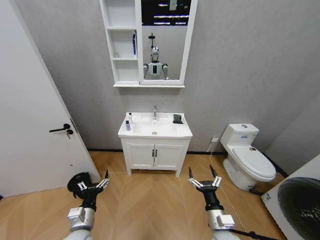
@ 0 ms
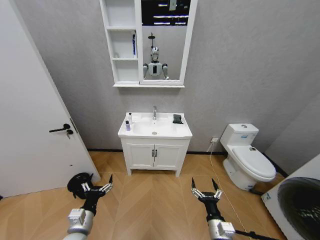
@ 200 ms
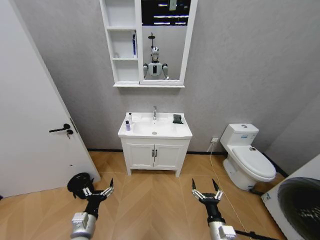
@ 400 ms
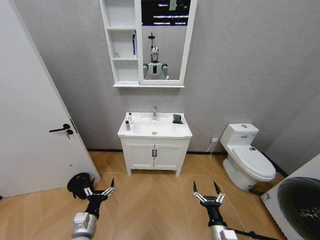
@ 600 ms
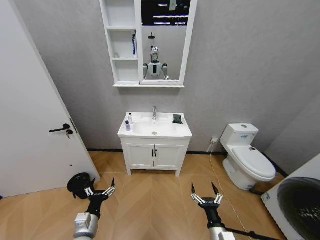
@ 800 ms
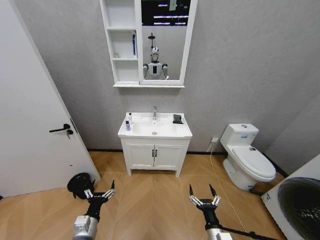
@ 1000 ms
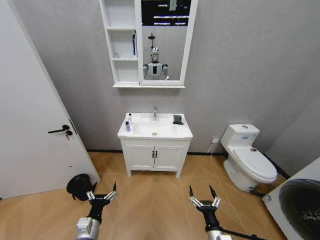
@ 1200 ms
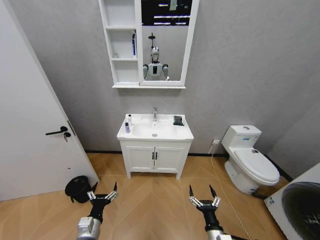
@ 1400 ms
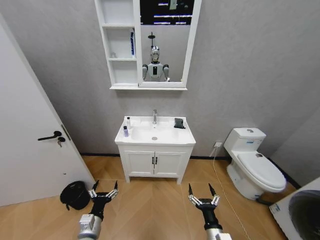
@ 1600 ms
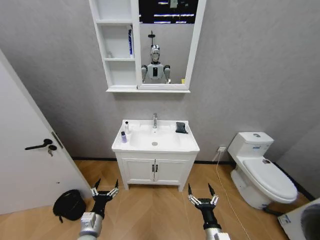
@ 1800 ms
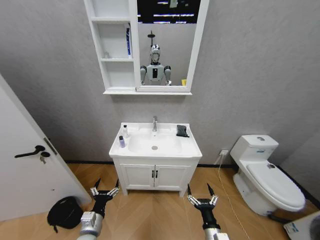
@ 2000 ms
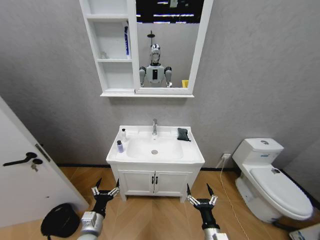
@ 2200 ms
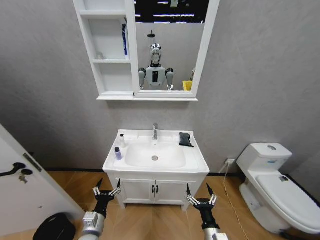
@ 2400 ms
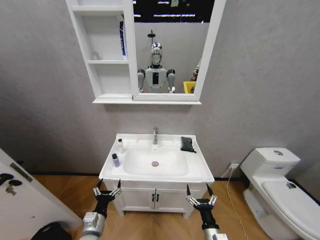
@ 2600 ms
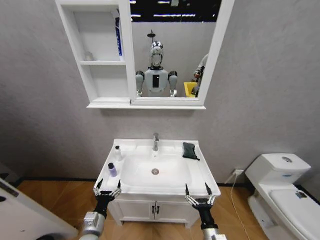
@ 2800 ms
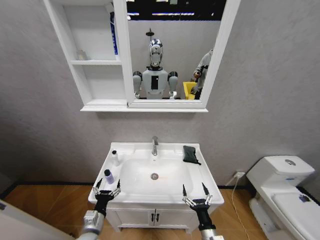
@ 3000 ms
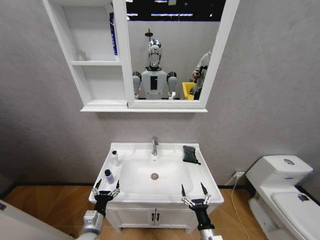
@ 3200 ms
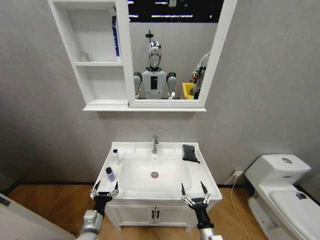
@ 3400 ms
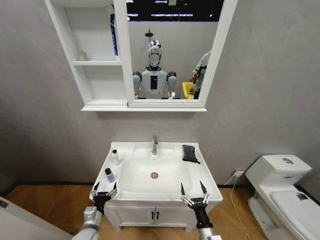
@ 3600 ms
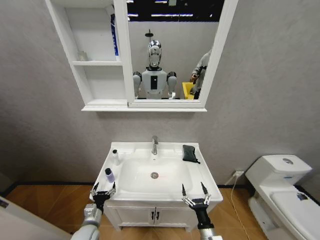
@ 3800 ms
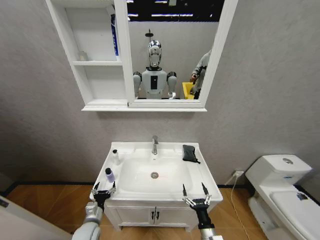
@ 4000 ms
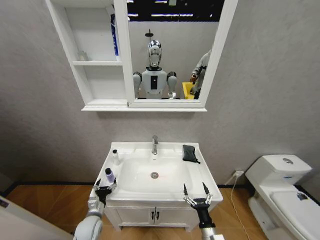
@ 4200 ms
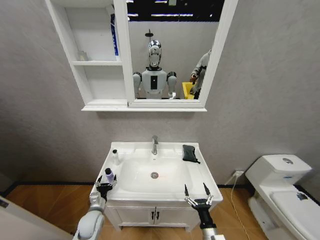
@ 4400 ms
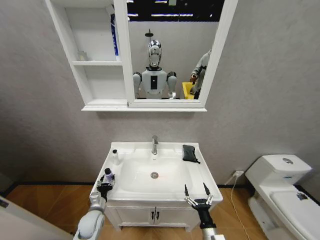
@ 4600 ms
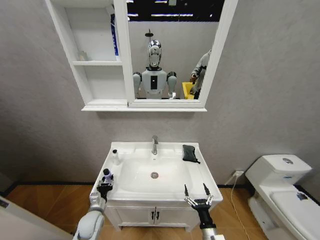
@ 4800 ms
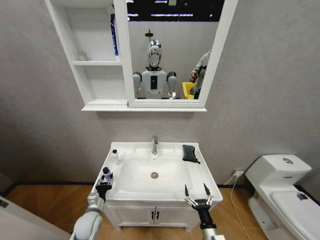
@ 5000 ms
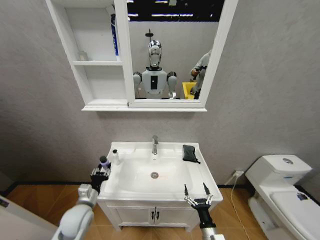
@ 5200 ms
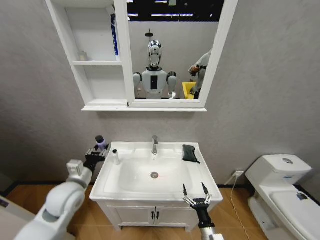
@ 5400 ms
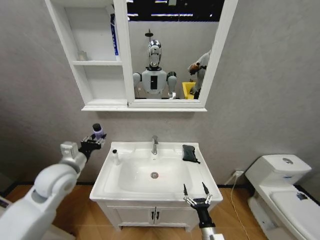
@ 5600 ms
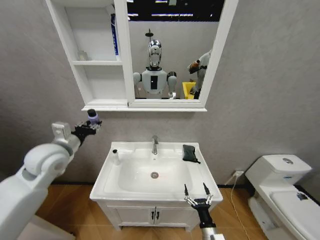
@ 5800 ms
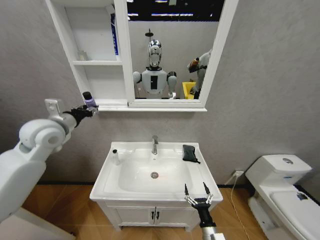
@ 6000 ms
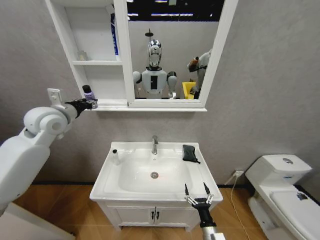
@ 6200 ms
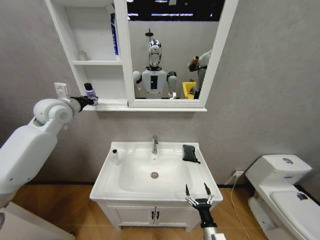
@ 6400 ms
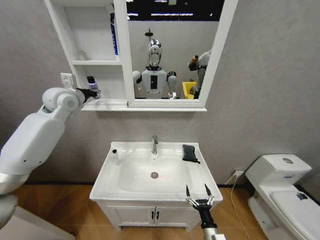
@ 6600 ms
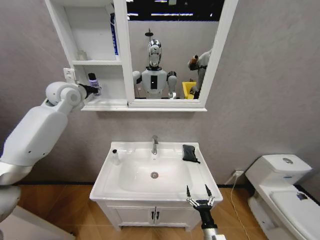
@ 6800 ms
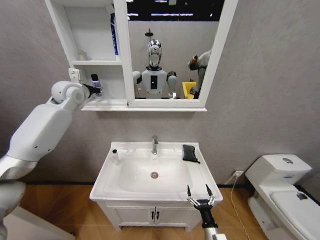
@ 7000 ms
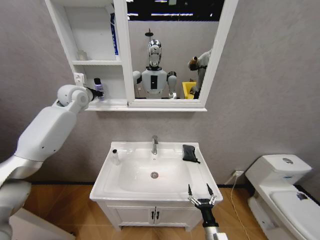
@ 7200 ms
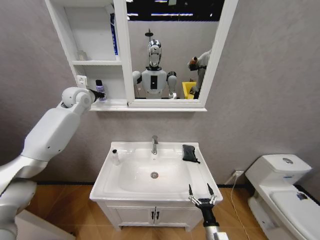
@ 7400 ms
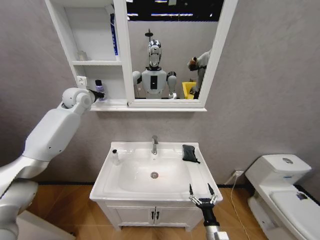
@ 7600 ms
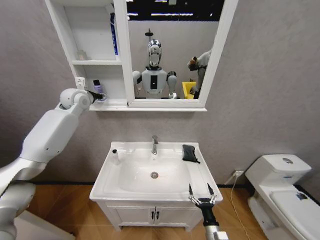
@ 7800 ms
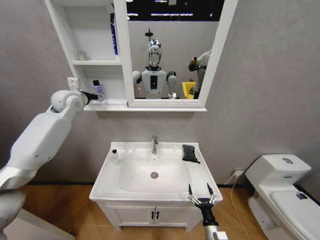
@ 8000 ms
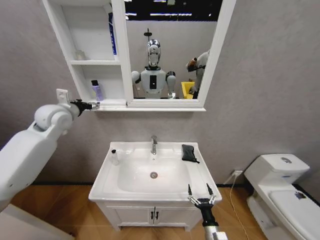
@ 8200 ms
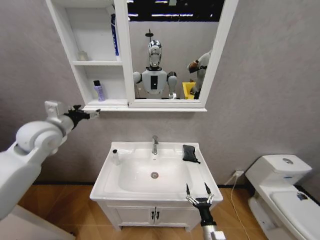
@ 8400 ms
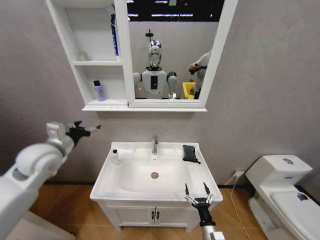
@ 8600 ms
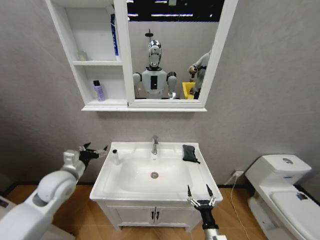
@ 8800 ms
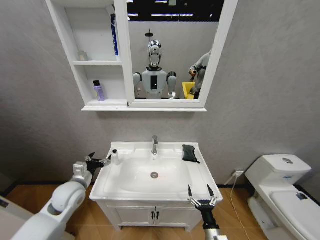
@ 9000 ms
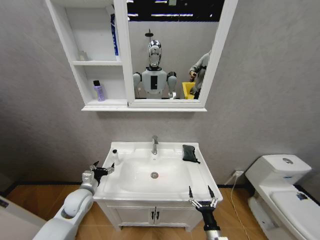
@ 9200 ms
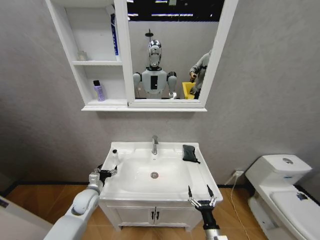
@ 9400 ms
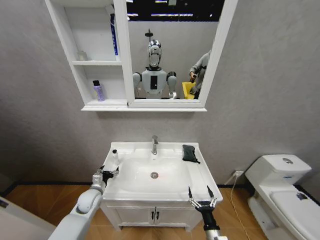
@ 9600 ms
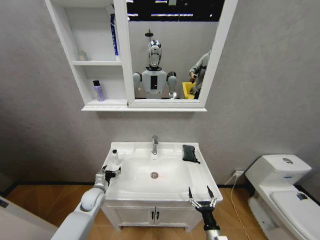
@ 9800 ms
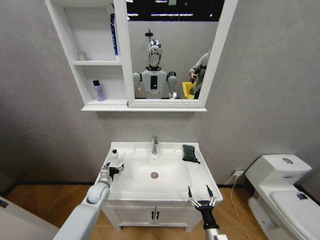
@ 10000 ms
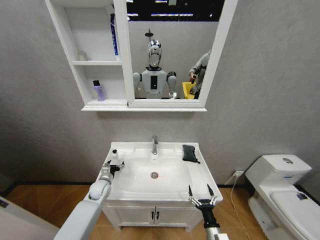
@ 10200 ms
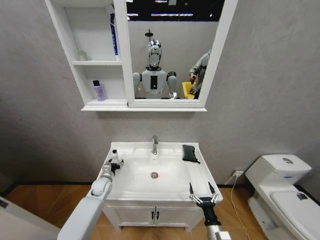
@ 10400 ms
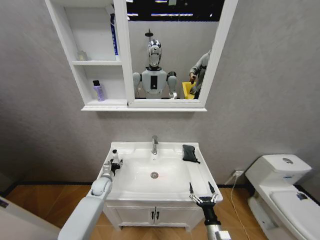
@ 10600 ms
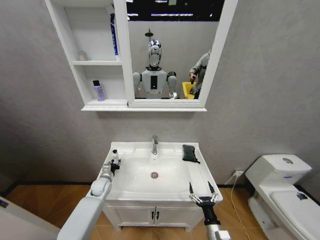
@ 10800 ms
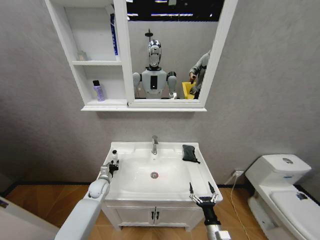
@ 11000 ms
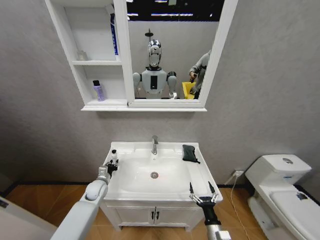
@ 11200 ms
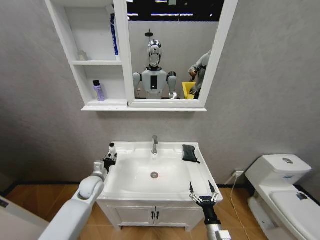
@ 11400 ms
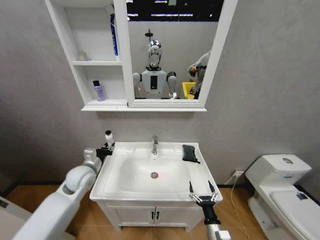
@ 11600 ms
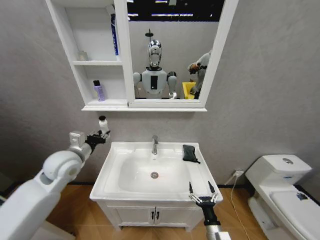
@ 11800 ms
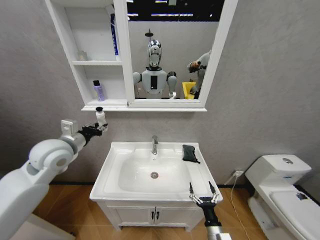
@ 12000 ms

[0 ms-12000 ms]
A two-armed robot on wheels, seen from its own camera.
Task of the whole recording: Move facial cleanser and shampoo from washbasin to cabinet, then wipe washbasin with towel.
3000 ms to 4400 ms: The left gripper travels forward by roughly 10 cm.
4400 ms to 6000 ms: The left gripper moves upward, approximately 40 cm, and closes up.
6000 ms to 7600 ms: The left gripper heads forward, covering about 15 cm.
7600 ms to 9000 ms: The left gripper heads downward and backward, covering approximately 40 cm, and opens its fingers.
9000 ms to 10400 ms: The left gripper moves downward and forward, approximately 15 cm.
10400 ms to 12000 ms: The left gripper goes roughly 35 cm upward, and closes up.

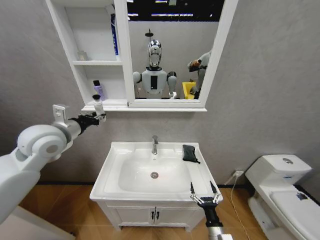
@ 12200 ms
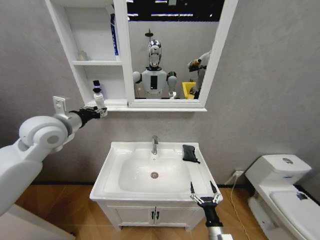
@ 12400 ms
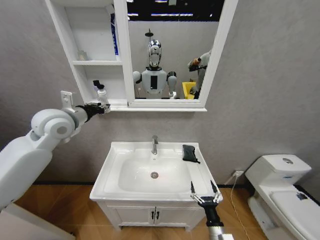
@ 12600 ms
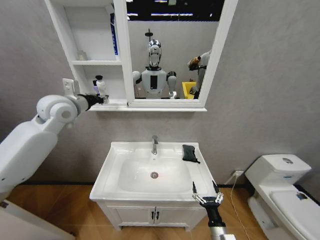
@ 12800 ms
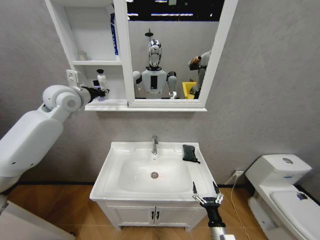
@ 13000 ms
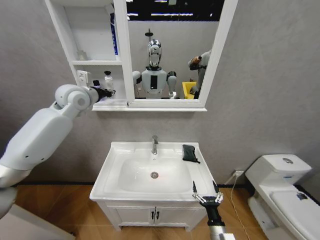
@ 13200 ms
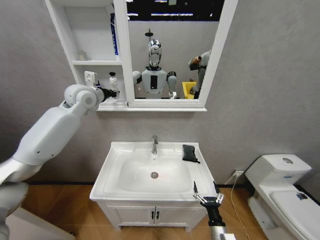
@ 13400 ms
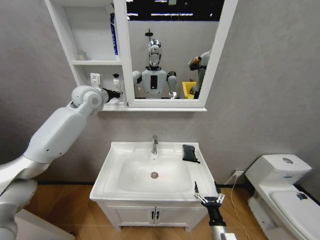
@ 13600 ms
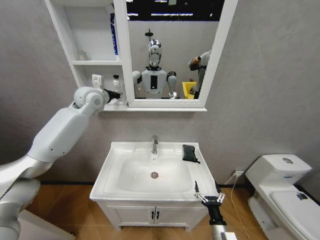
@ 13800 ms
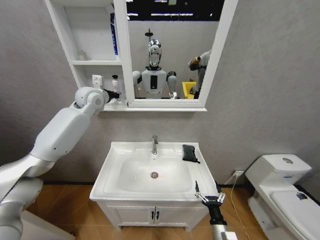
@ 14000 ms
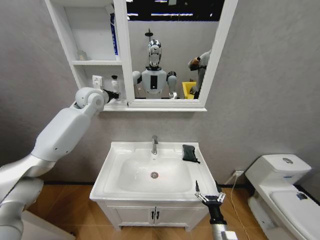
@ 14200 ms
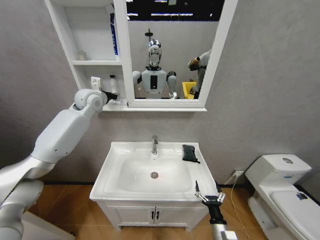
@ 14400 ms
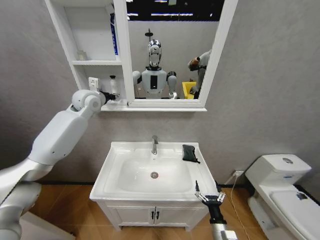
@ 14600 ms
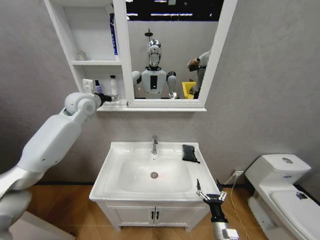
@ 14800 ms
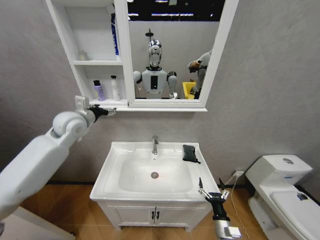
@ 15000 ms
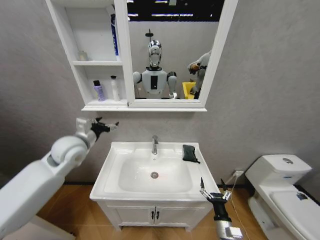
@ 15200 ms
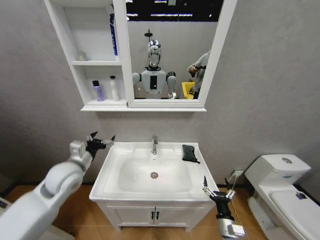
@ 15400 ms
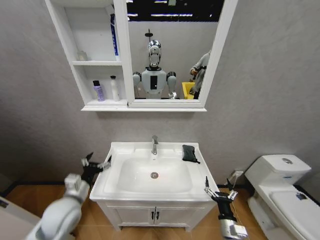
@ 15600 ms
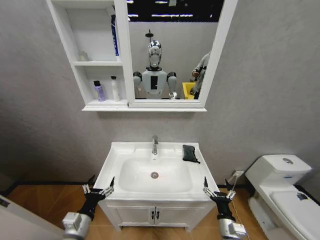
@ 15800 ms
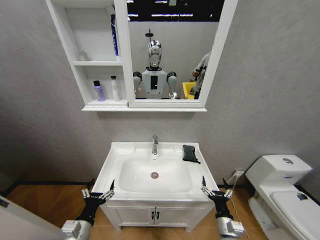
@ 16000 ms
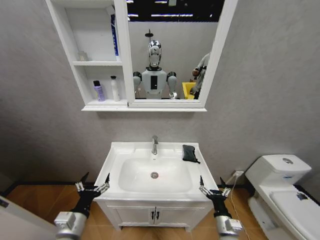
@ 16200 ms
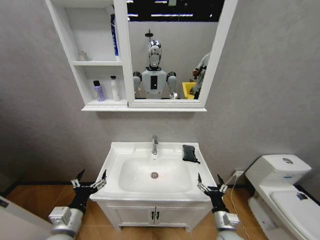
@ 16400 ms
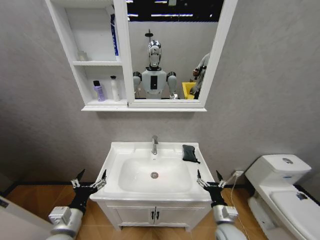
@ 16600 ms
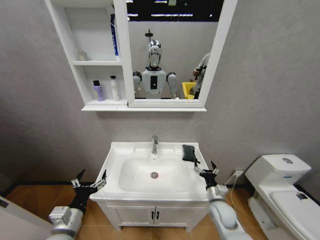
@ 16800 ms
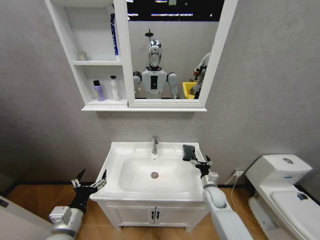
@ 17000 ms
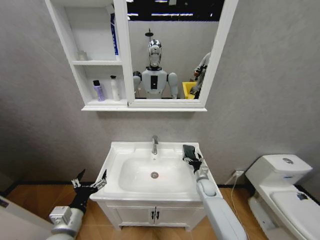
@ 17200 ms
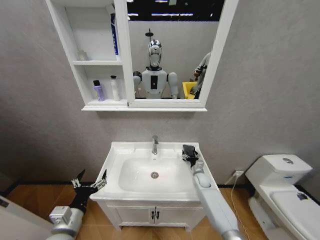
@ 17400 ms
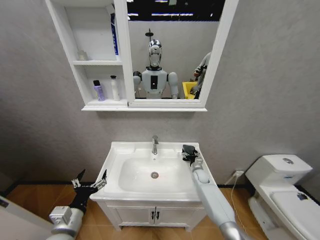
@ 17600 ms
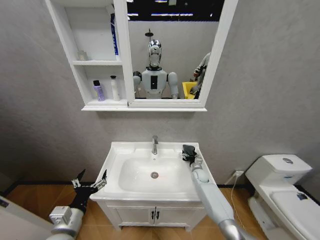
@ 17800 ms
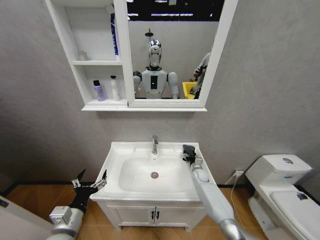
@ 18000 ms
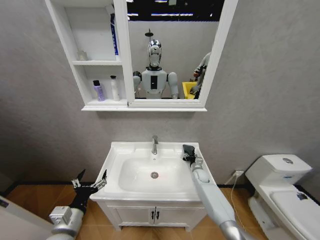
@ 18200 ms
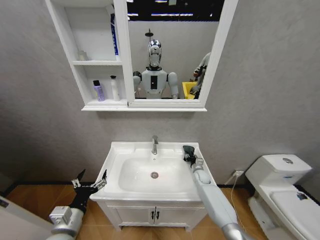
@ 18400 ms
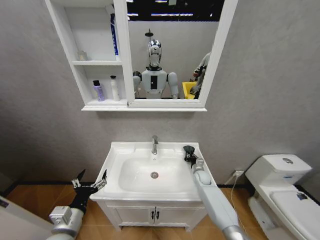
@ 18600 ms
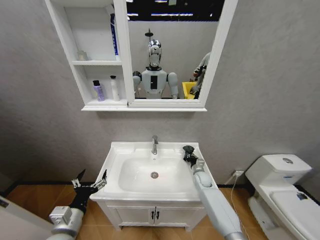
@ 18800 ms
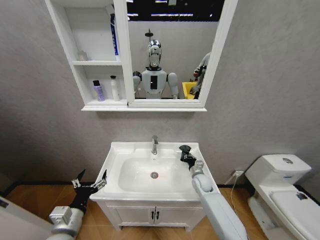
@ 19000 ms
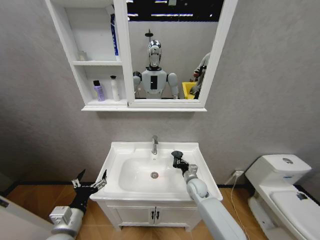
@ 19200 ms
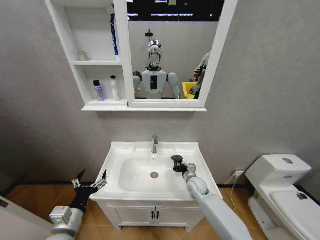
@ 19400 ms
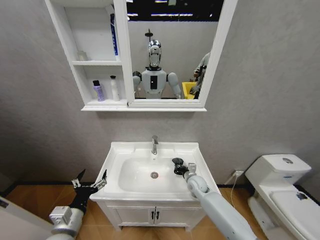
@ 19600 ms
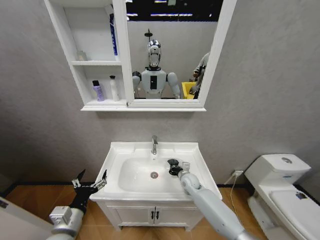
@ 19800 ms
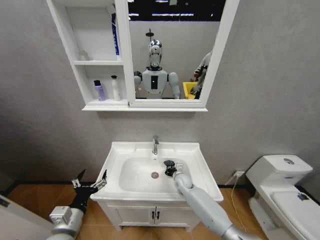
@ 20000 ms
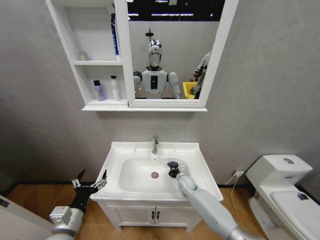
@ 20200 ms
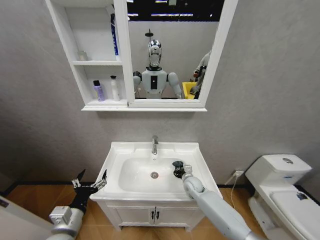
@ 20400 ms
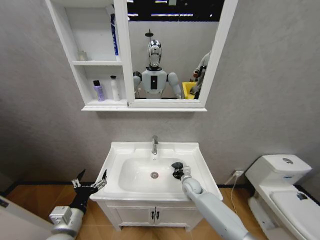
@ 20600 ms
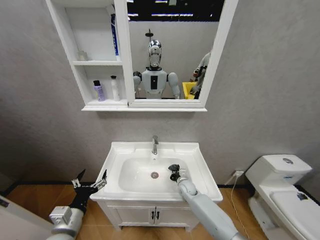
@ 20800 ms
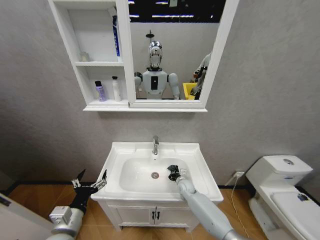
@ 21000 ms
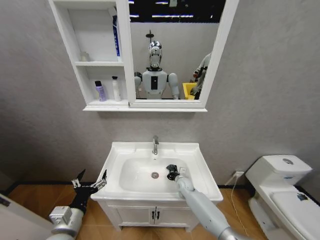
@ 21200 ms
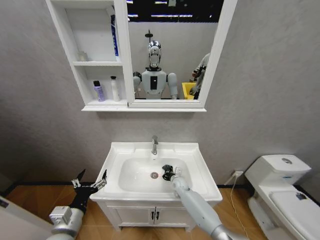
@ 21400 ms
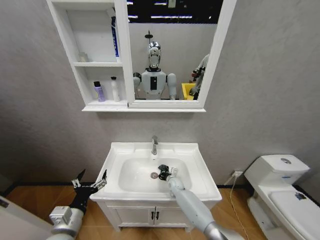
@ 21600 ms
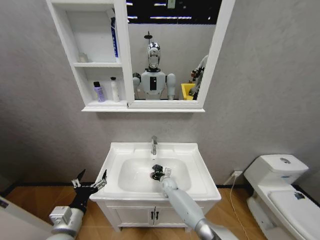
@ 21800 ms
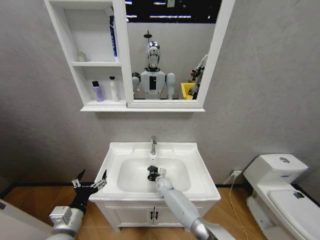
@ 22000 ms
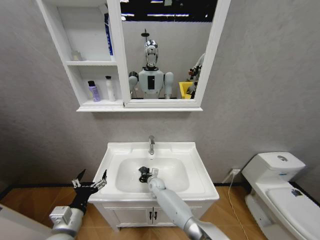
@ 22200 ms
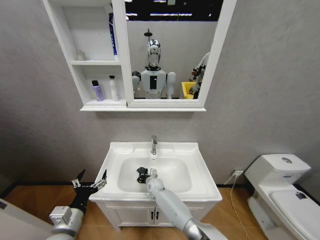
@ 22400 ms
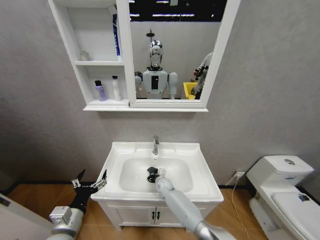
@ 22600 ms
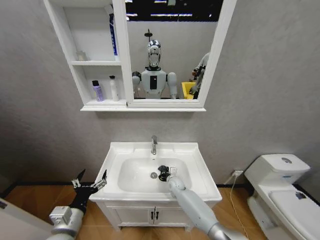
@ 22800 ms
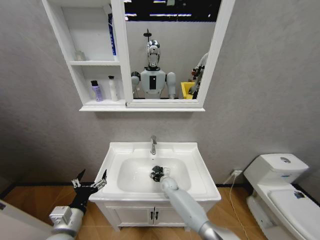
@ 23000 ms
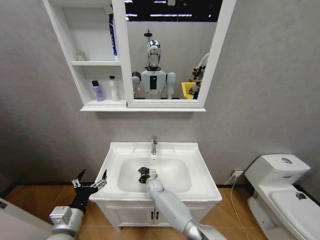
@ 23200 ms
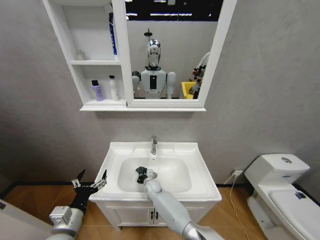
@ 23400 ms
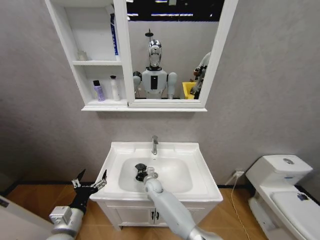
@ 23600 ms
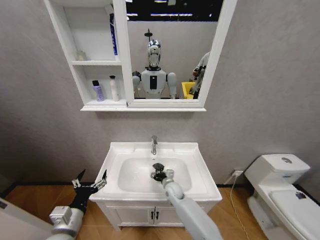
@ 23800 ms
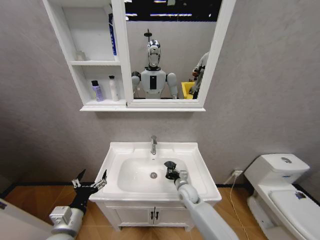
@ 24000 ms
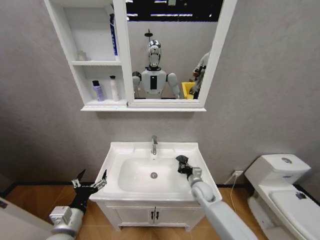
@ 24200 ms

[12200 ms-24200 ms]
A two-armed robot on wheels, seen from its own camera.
Task of the whole recording: Move facial cleanser and shampoo from washbasin to cabinet, then wipe washbasin with towel.
12200 ms to 13800 ms: The left gripper is displaced forward by roughly 20 cm.
13800 ms to 15200 ms: The left gripper moves backward and downward, some 20 cm, and opens up.
15200 ms to 16600 ms: The left gripper shifts approximately 25 cm backward and downward; the right gripper goes some 5 cm upward.
16600 ms to 18200 ms: The right gripper shifts roughly 30 cm forward, and closes up.
18200 ms to 19800 ms: The right gripper goes roughly 10 cm to the left and backward, and closes its fingers.
19800 ms to 21200 ms: The right gripper shifts about 5 cm downward.
21200 ms to 22600 ms: The right gripper heads to the left, covering roughly 10 cm.
22600 ms to 24200 ms: The right gripper goes left and right, about 25 cm each way, reversing 2 times.
